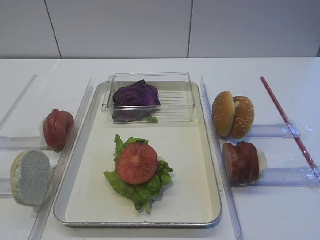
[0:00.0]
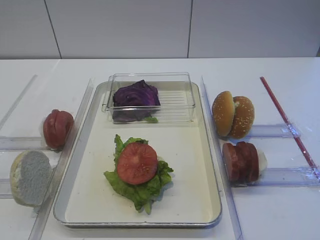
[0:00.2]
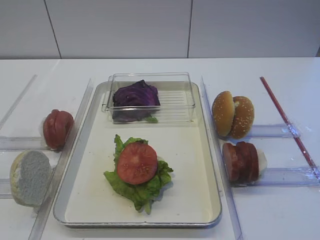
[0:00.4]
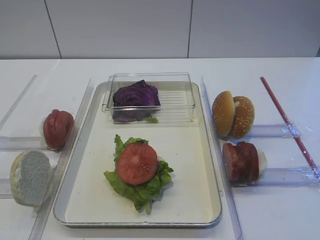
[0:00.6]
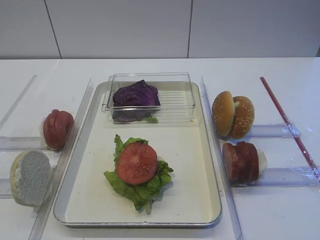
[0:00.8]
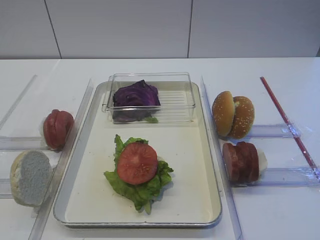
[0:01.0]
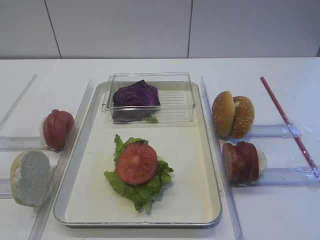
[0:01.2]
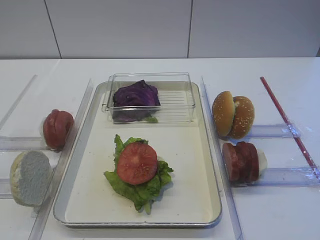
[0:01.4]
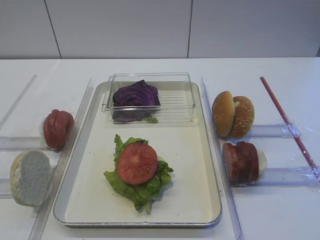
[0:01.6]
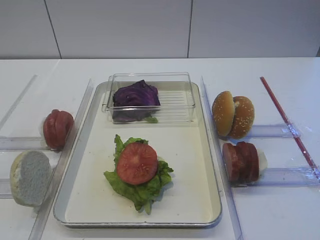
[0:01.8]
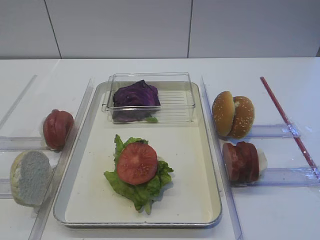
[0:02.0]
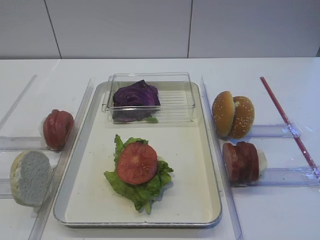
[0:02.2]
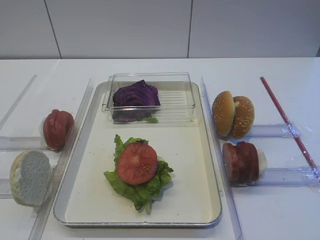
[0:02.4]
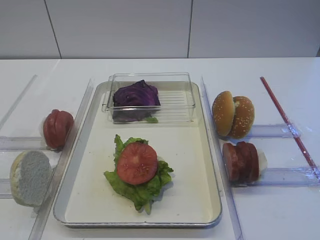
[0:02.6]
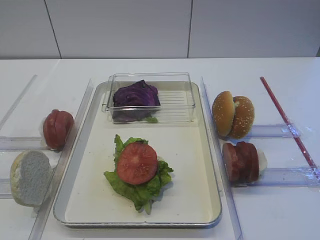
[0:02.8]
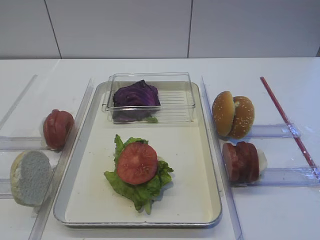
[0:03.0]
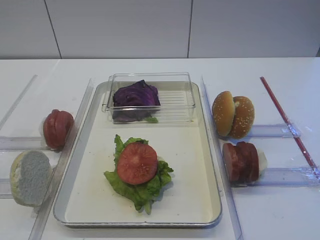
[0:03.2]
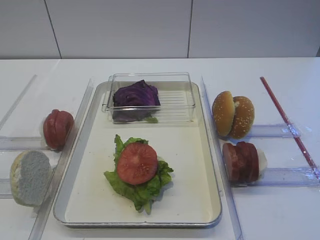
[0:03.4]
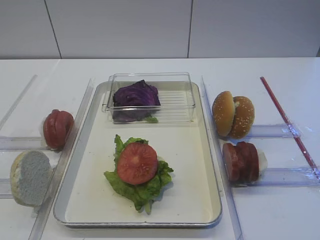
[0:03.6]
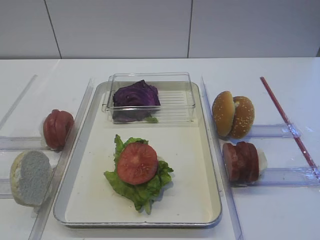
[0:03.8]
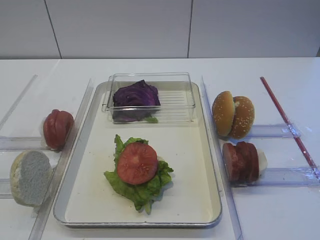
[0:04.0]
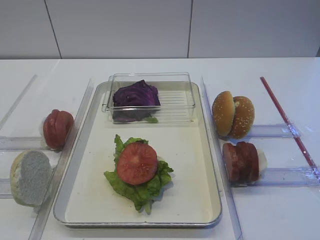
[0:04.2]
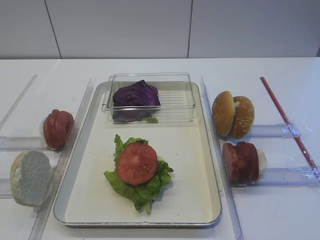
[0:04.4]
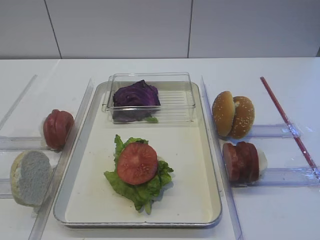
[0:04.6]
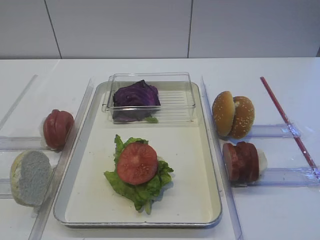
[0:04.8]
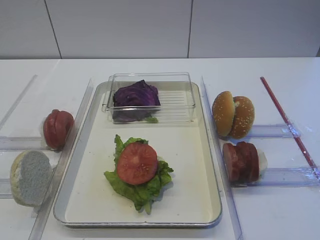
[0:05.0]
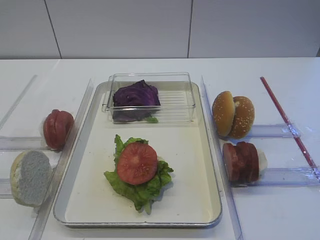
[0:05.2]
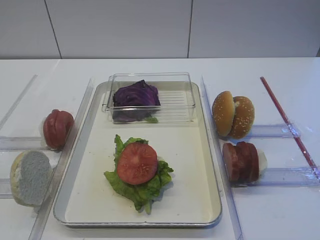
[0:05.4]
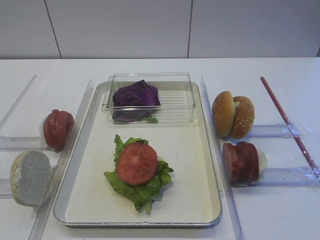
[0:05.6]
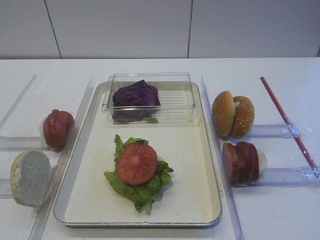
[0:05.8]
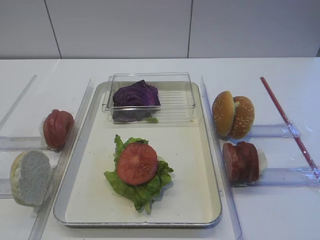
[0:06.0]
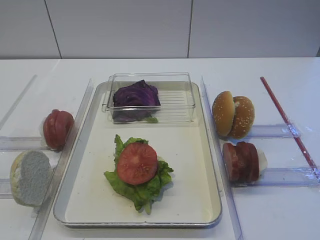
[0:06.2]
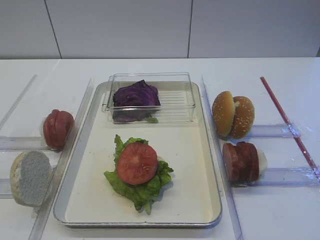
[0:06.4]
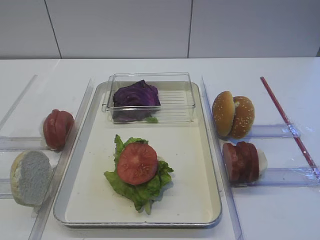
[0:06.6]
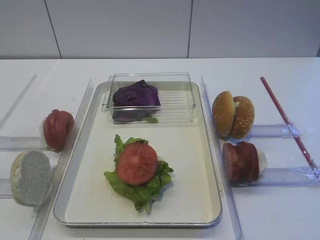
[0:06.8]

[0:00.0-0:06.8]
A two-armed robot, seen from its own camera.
0:02.8 to 0:06.8: Both grippers stay about where they are.
